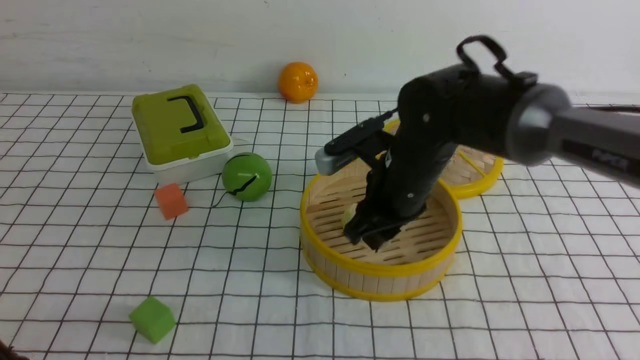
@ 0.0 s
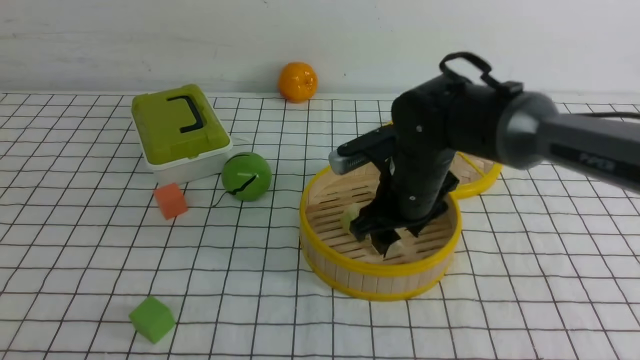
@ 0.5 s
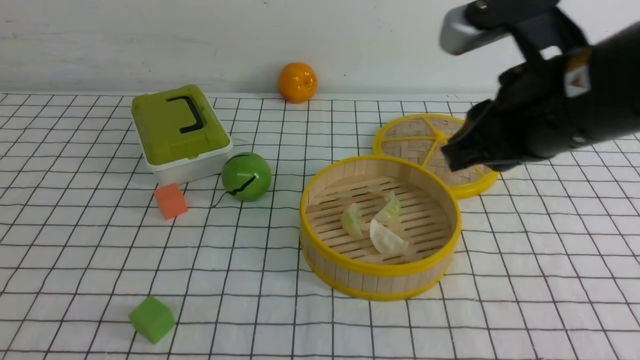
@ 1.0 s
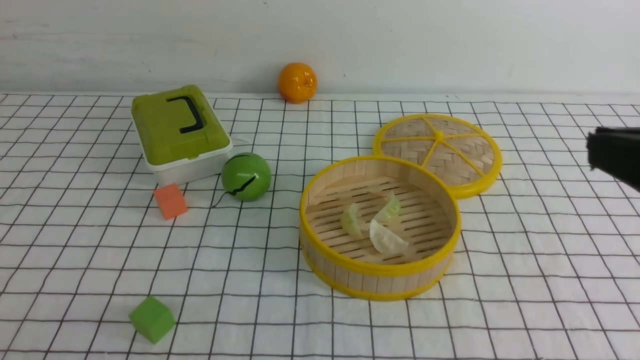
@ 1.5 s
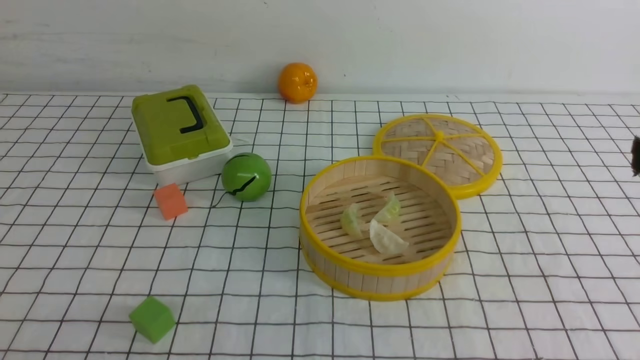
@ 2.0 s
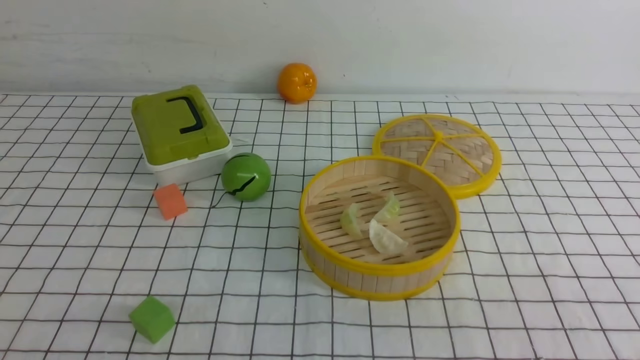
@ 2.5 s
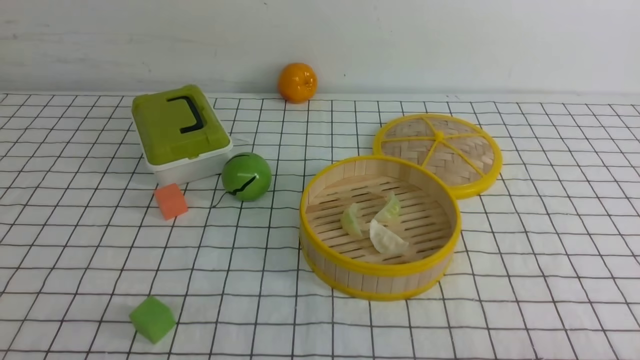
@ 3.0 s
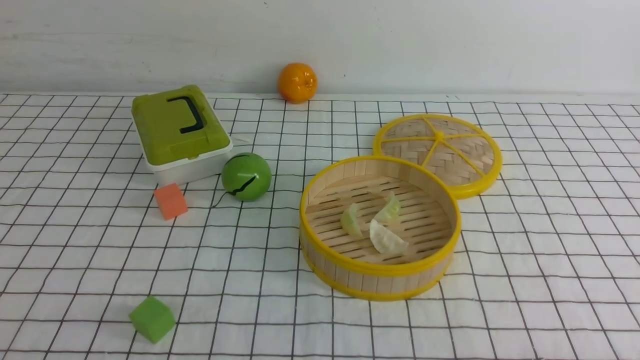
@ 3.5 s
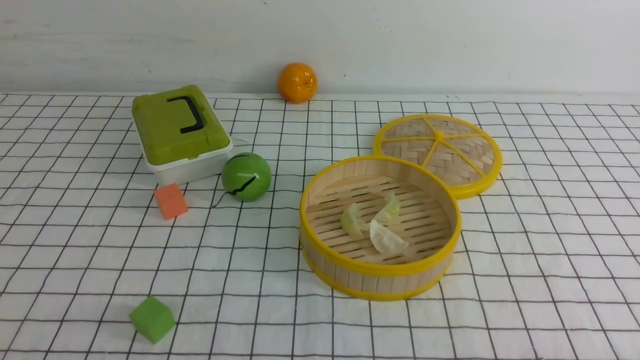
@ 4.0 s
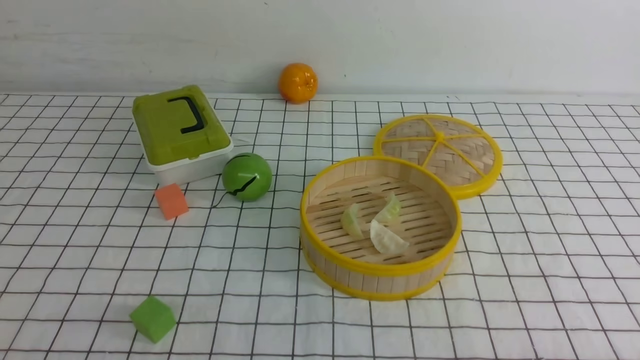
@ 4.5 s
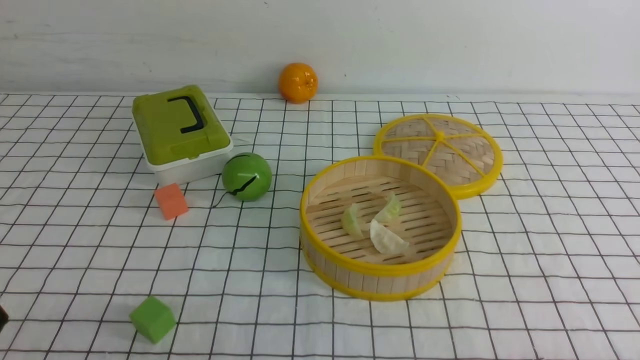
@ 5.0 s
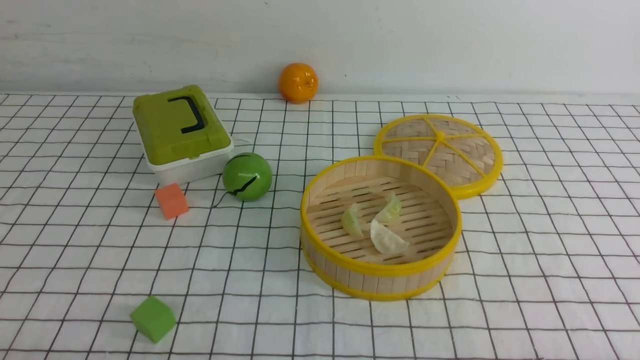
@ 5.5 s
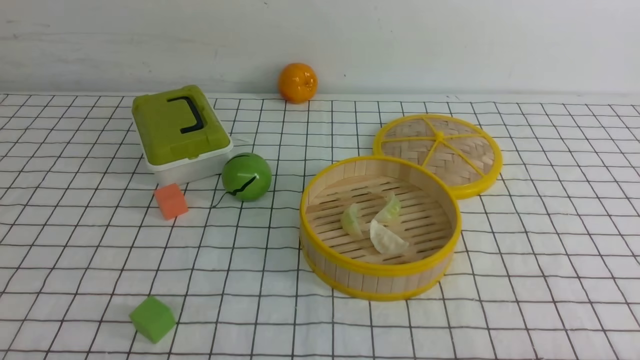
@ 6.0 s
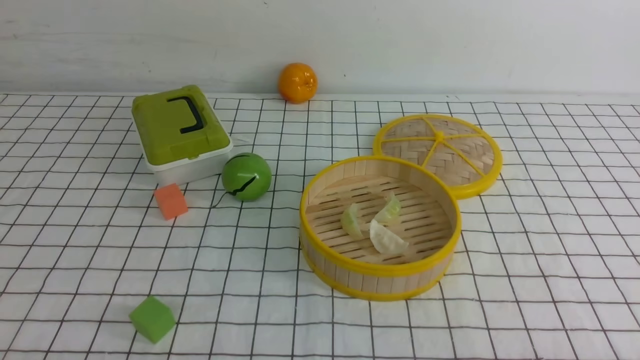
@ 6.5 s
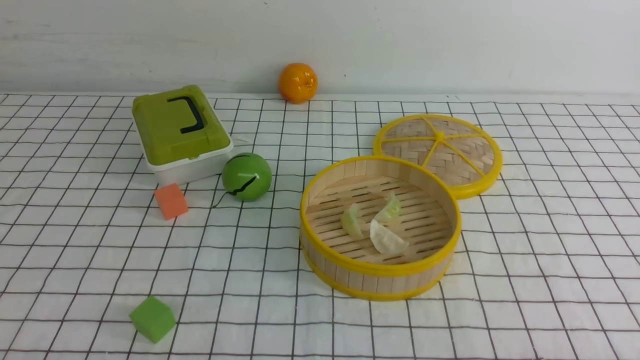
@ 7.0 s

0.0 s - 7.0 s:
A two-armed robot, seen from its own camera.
Task of the whole recording: put the dumplings into the steamer on the table with the white tablecloth.
0.0 s - 2.0 s: The right gripper travels backward, to the right and upward by about 35 cm, and closes its fingers; the left gripper changes place by some 5 cm.
5.0 s - 7.0 s: Both grippers stay about where they are.

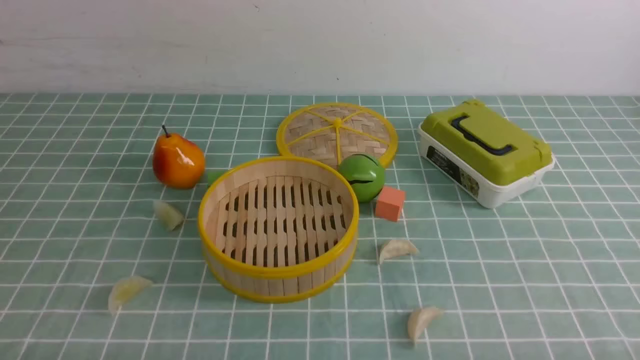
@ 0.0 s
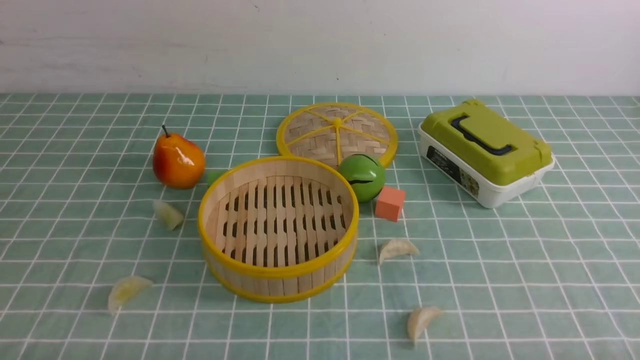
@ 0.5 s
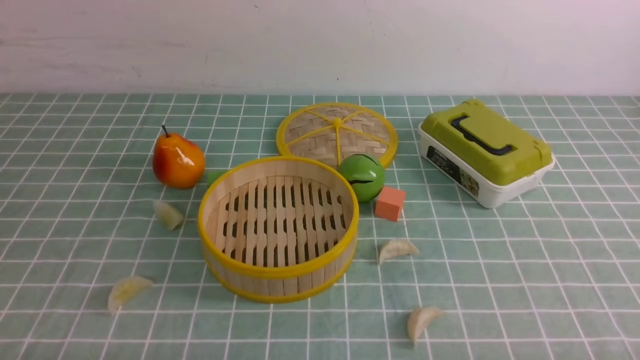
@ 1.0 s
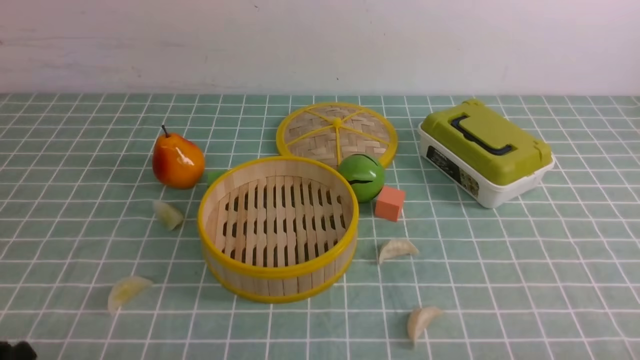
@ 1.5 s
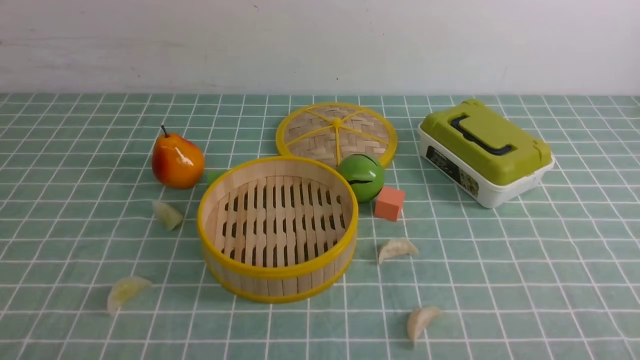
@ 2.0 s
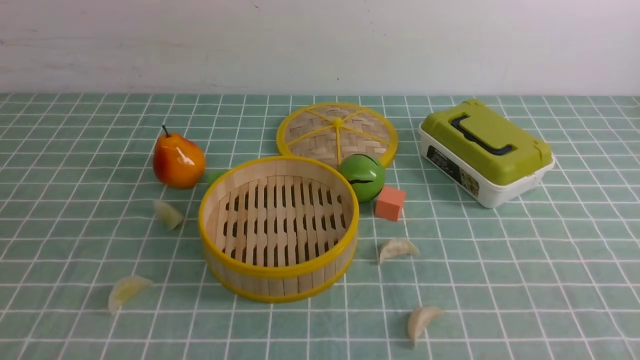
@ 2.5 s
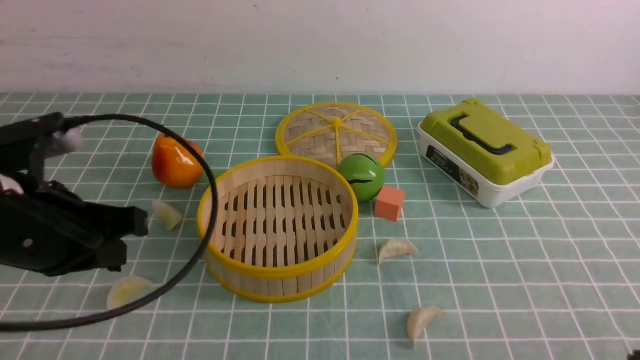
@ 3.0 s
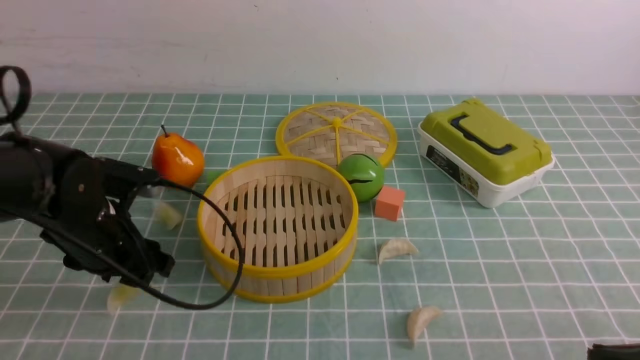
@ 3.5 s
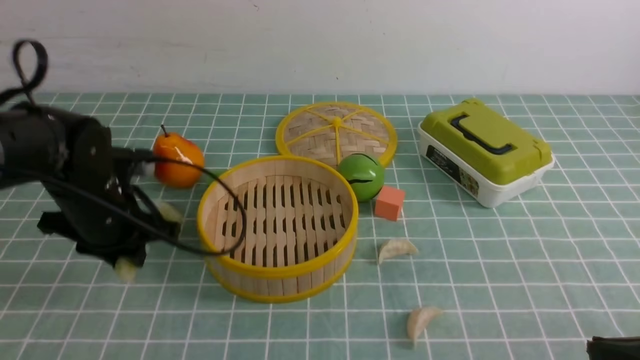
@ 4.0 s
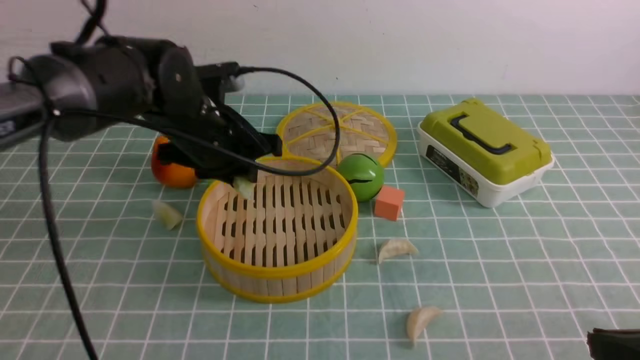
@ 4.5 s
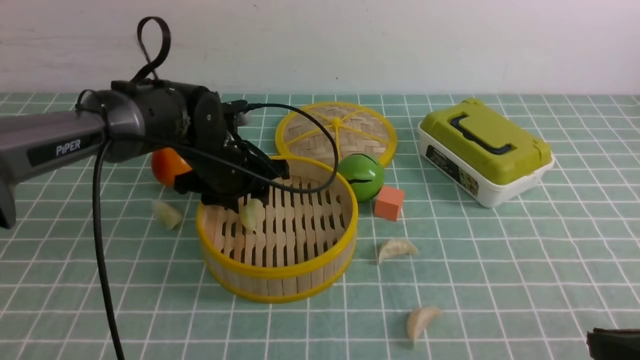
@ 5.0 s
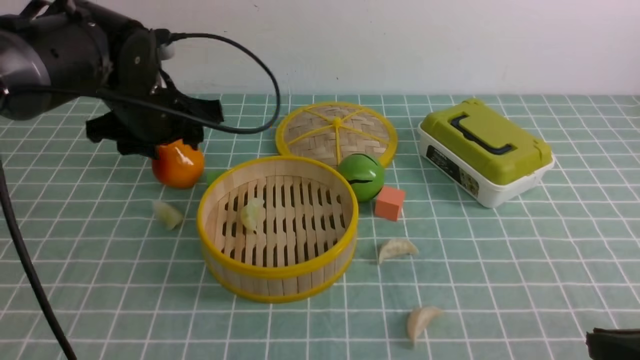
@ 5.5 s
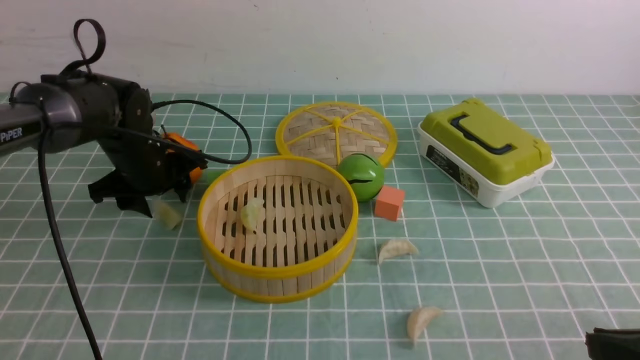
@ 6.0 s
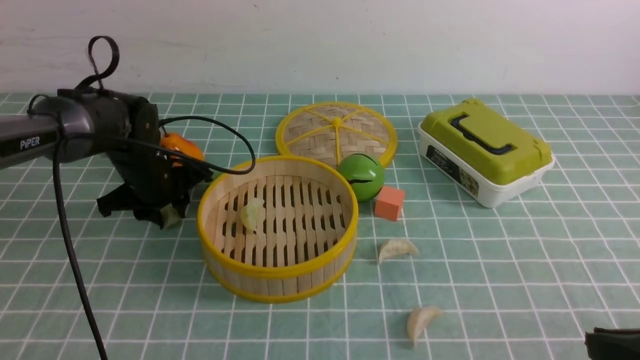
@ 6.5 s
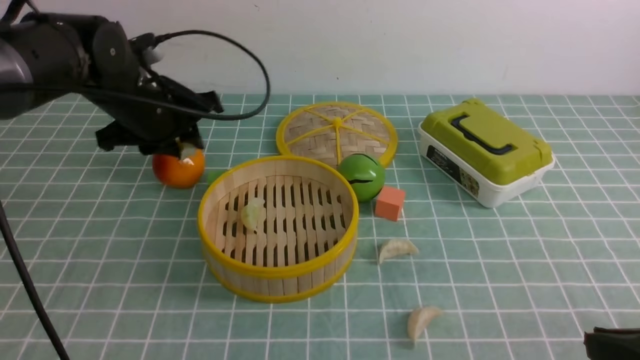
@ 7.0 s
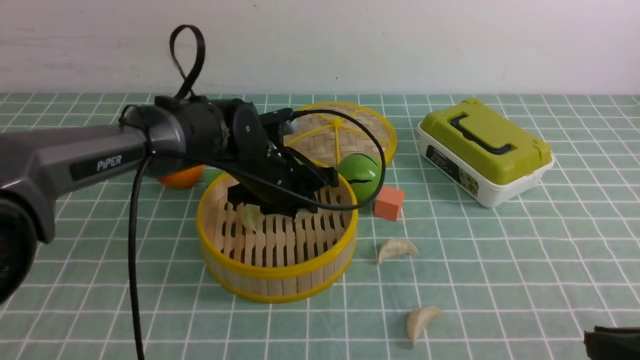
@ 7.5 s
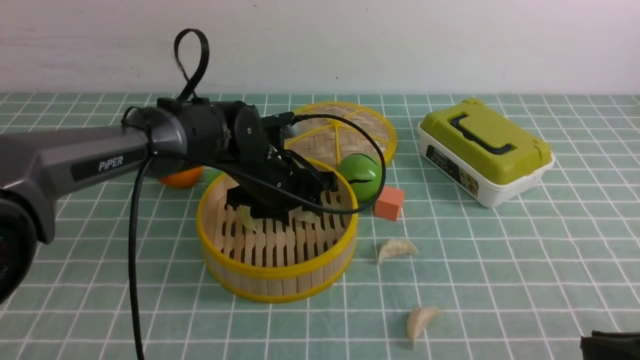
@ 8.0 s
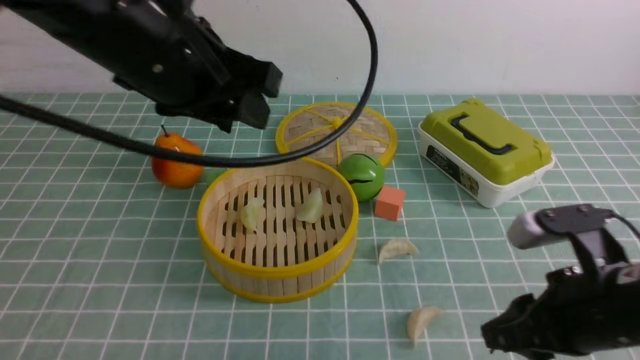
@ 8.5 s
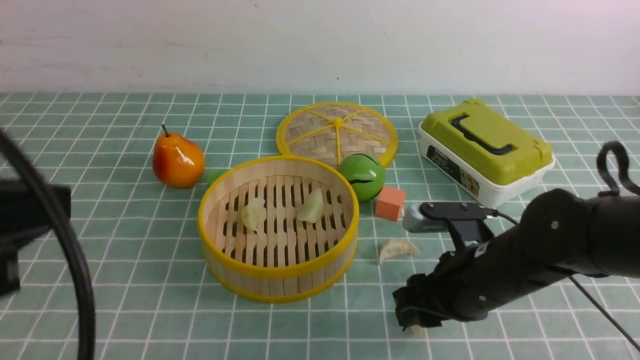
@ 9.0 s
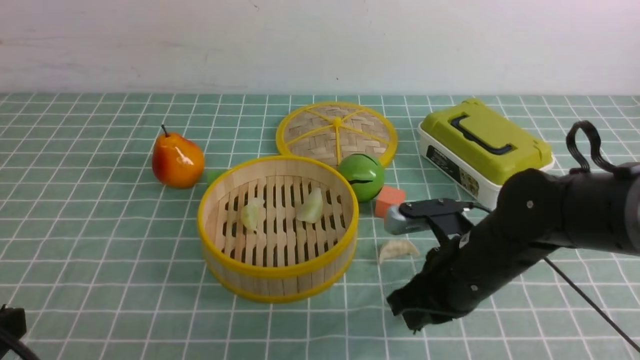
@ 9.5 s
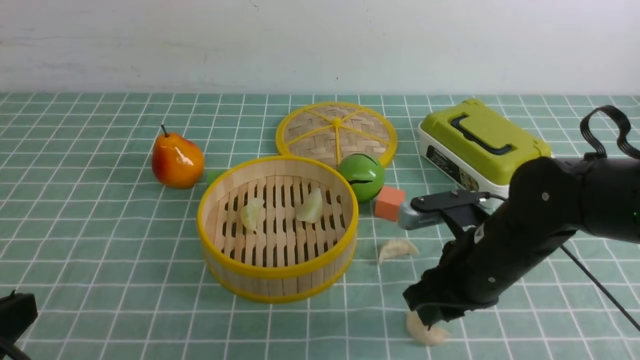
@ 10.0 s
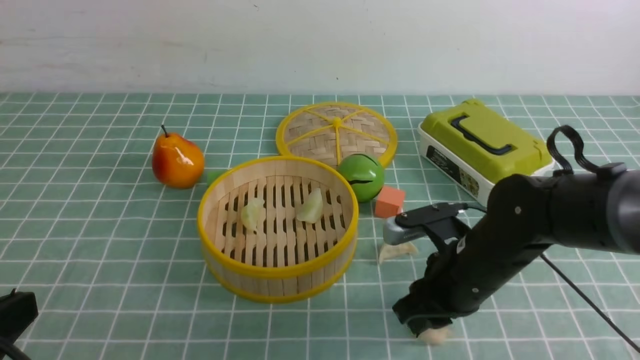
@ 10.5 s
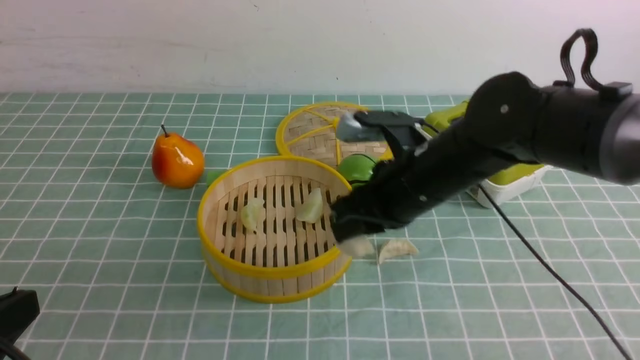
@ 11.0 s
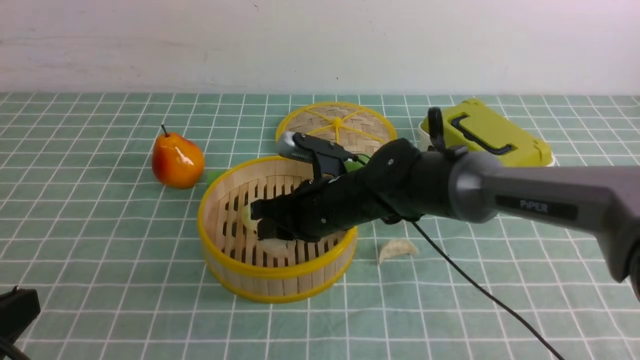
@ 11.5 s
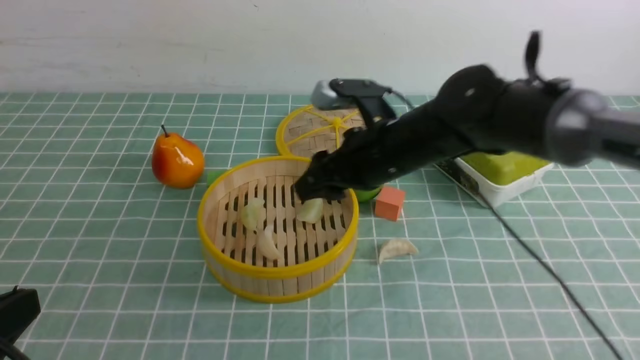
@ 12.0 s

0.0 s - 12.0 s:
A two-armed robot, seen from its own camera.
Task of the whole recording: put the dumplings into the steamer on the table with the blue tablecloth.
Step, 0.0 s - 3.5 s: use the left arm to grab a dumpling.
Step, 4.0 s - 5.0 s: use the left arm to put the dumpling into the steamer.
Step, 5.5 s - 6.0 s: use the left arm to grab a dumpling.
Step, 6.5 s - 8.0 s: use the left arm to put the dumpling into the steamer.
Step, 8.5 s - 10.5 s: use the right arm to grab a dumpling.
Step, 11.0 s - 11.5 s: use the right arm to put the dumpling into the steamer.
2.0 s - 4.0 s: The left gripper moves forward, some 30 cm, and closes, then reopens. Meanwhile the right gripper moves forward, approximately 5 cm, and closes.
4.0 s - 6.0 s: The left gripper moves forward, approximately 10 cm, moves roughly 10 cm to the right and comes back, and opens its fingers.
6.0 s - 8.0 s: The left gripper goes roughly 15 cm to the right.
8.0 s - 10.0 s: The left gripper moves backward and to the left, roughly 35 cm, and closes up; the right gripper goes roughly 20 cm forward, to the left and downward, and opens and closes again.
10.0 s - 12.0 s: The right gripper goes roughly 15 cm forward and to the left, and opens its fingers.
